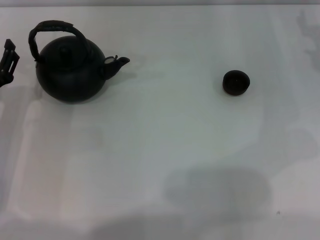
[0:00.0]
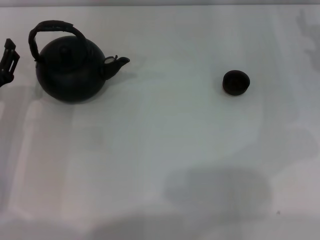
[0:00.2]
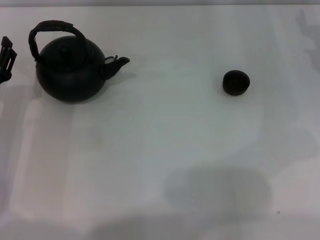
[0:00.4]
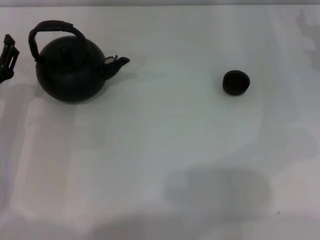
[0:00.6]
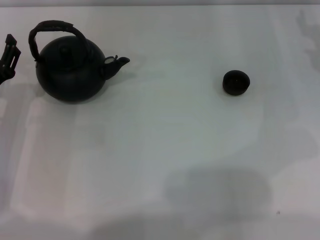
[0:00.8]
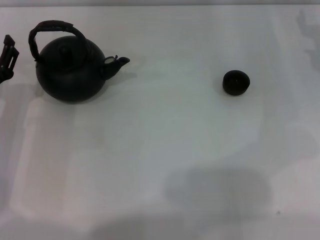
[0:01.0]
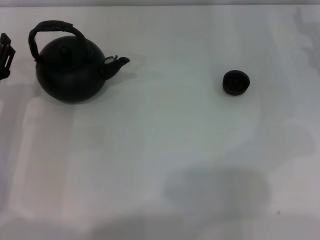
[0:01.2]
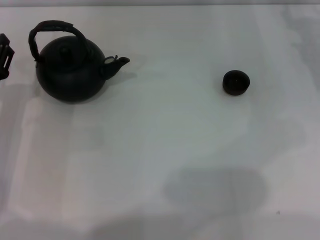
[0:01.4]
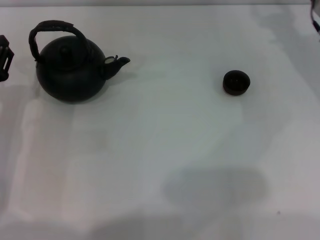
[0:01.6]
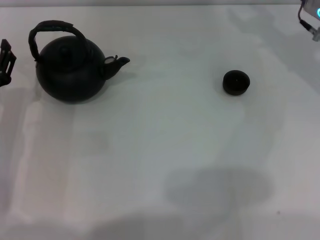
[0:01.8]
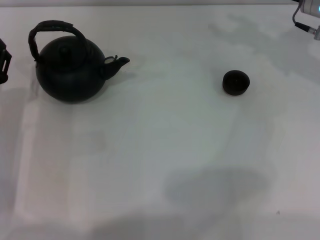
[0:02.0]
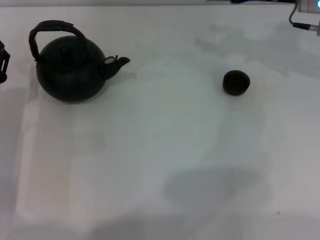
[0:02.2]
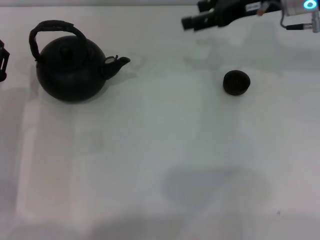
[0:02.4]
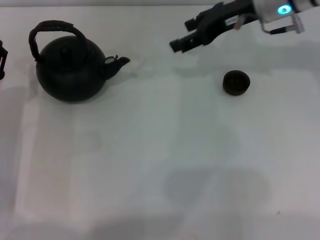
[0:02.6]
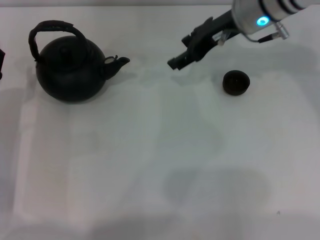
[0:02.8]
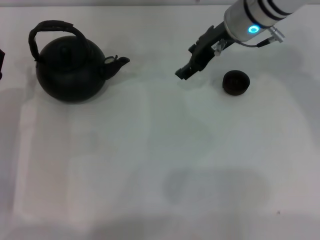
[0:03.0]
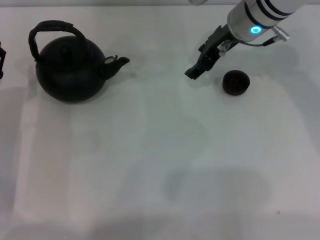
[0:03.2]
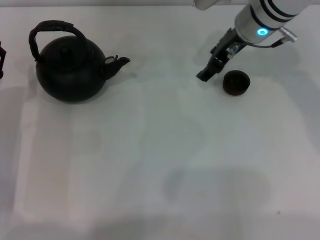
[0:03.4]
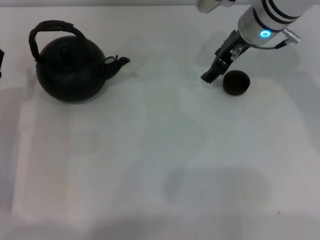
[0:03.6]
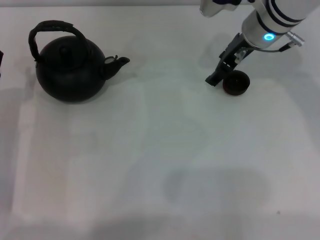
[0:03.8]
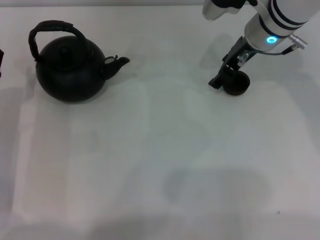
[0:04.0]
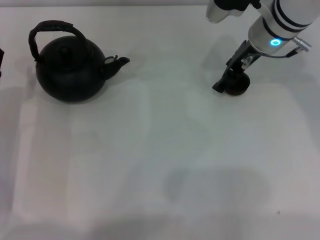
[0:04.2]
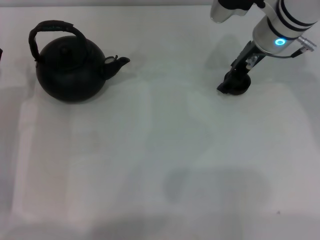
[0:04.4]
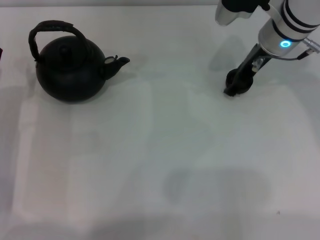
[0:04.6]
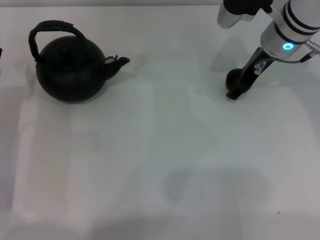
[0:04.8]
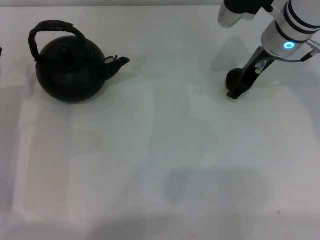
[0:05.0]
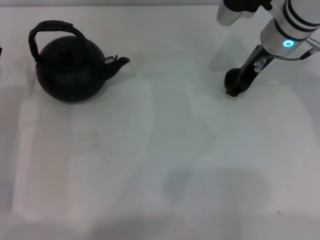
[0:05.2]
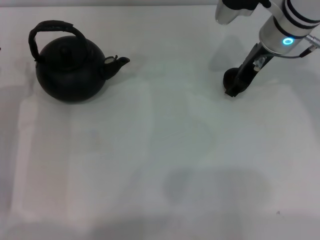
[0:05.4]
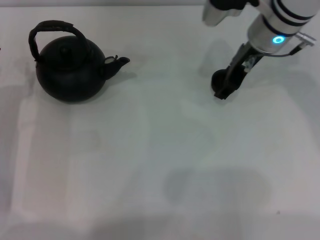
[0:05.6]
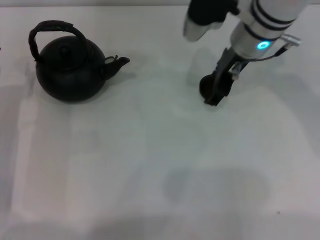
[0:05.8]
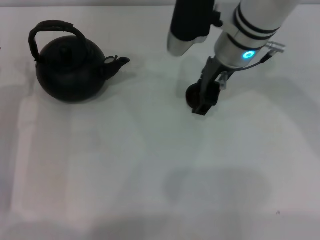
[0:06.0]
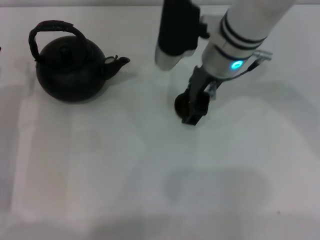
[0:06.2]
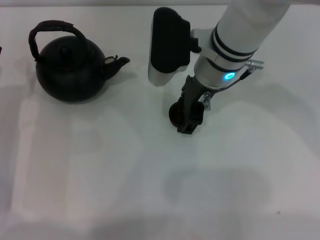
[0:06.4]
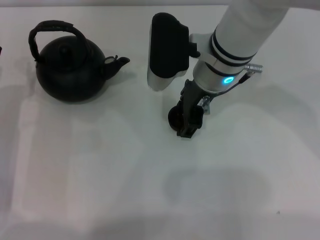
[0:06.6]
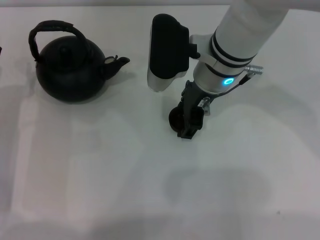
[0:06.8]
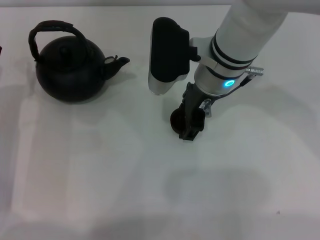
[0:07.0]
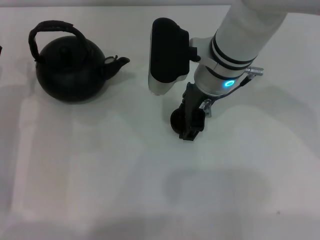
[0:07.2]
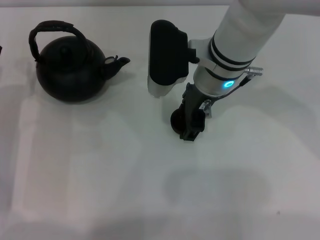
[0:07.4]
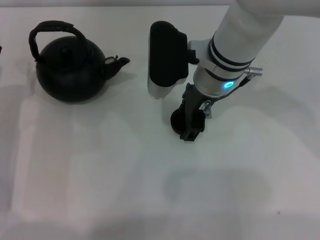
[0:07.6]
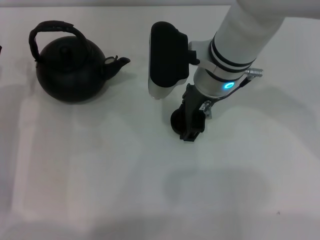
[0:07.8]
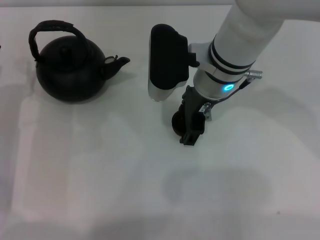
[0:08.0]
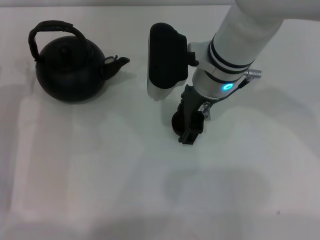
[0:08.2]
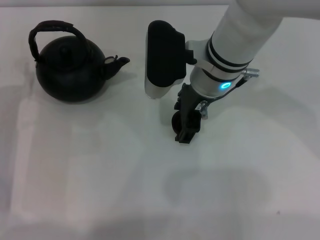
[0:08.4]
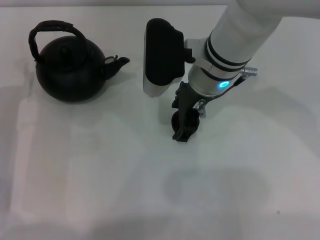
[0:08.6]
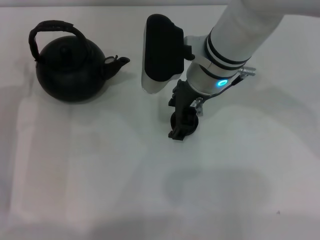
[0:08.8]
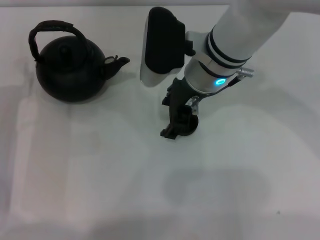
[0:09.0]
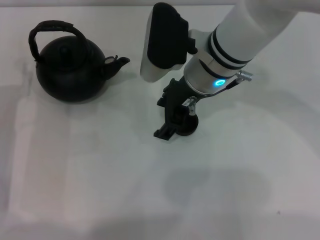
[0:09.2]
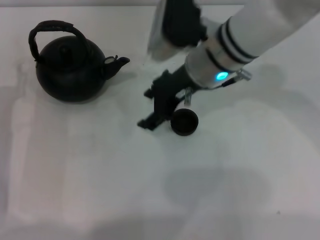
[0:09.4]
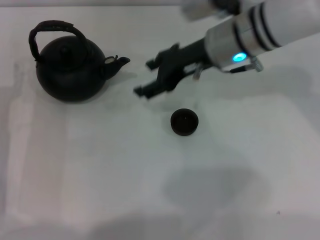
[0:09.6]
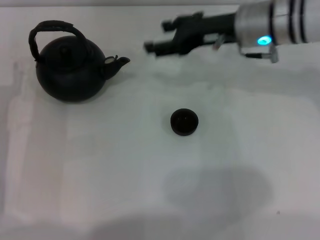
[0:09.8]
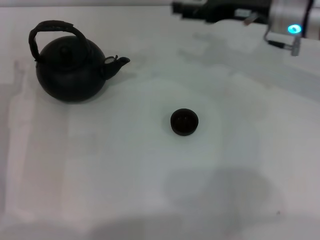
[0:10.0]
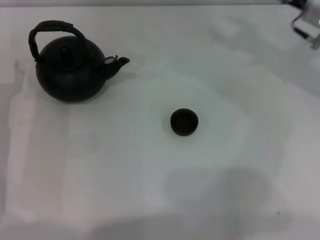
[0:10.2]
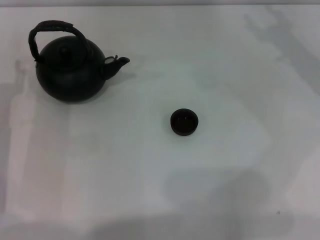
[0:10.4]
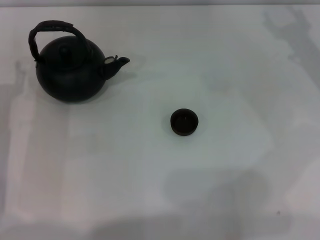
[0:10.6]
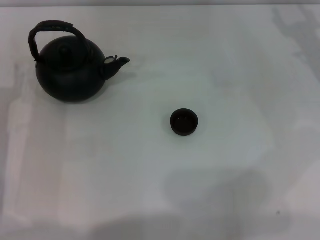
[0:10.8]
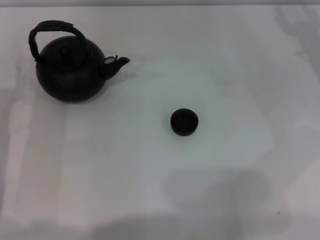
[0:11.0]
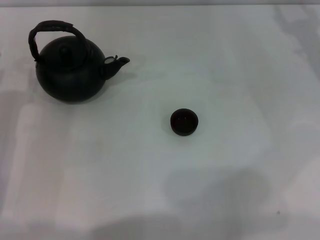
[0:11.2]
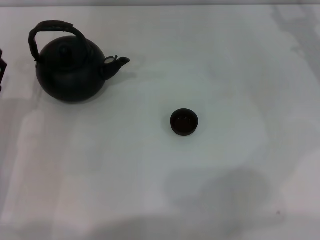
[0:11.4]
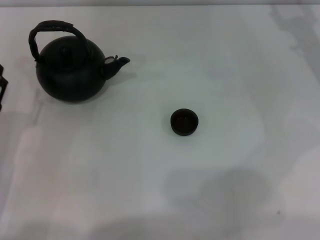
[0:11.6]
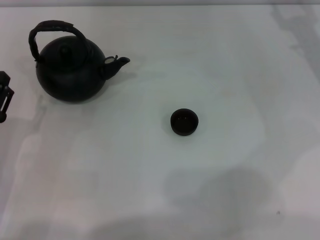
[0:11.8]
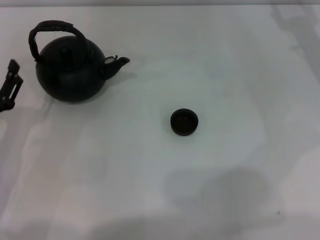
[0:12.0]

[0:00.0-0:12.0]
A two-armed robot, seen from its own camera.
Task of the whole recording: Grasp the handle of the teapot with one hand and pour tea into the teacup.
Step, 0:00.0 to 0:05.4: Pick up the teacup with the right gripper.
Step, 0:05.8 to 0:09.0: Place the teacup in the center of view with the right gripper.
0:01.6 to 0:03.0: The right gripper heads to the left, covering about 15 cm.
0:03.0 to 0:04.4: There are only small adjustments of the grippers.
0:04.4 to 0:06.0: The right gripper heads to the left, covering about 5 cm, and closes its fingers.
0:06.0 to 0:07.6: The right gripper changes place by about 5 cm.
0:07.6 to 0:09.0: The right gripper opens.
0:09.0 to 0:10.4: The right gripper is displaced to the right by about 20 cm.
0:10.4 to 0:12.0: The left gripper shifts by about 5 cm.

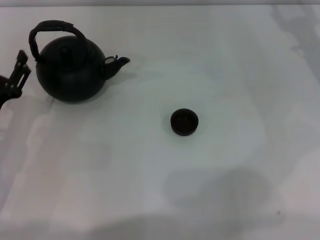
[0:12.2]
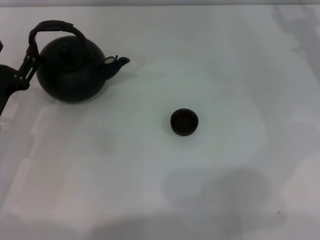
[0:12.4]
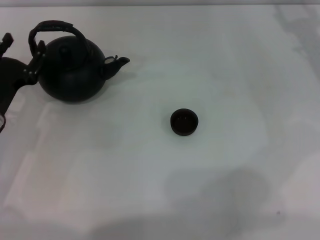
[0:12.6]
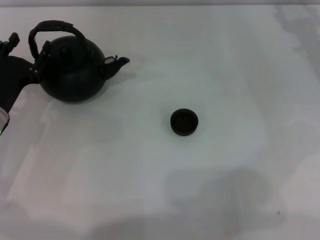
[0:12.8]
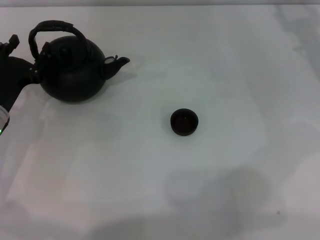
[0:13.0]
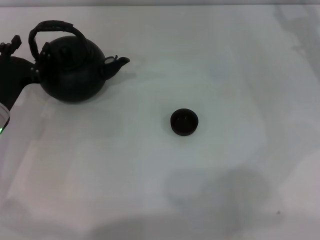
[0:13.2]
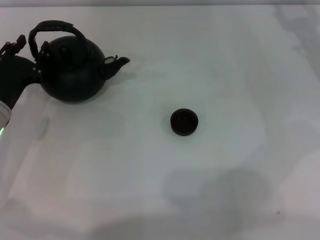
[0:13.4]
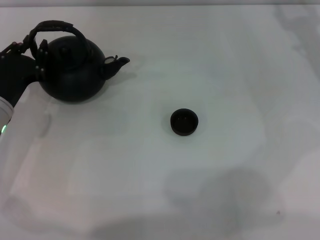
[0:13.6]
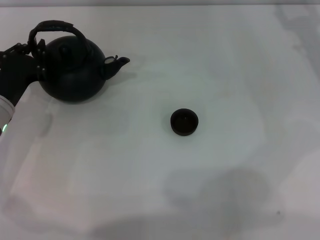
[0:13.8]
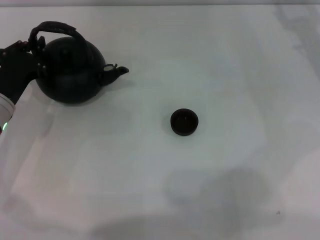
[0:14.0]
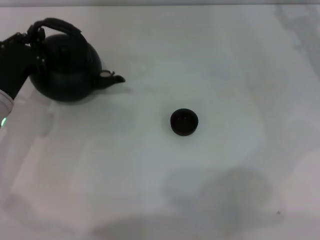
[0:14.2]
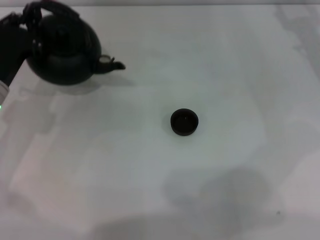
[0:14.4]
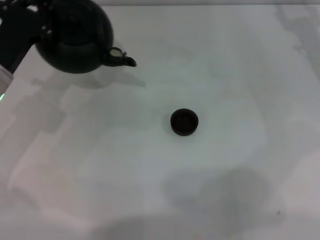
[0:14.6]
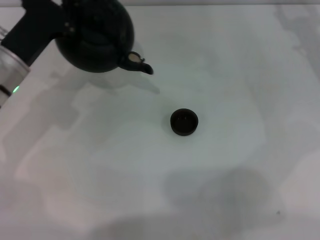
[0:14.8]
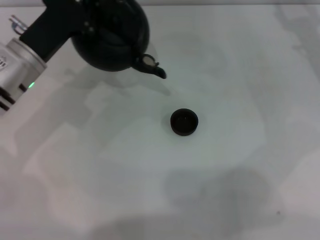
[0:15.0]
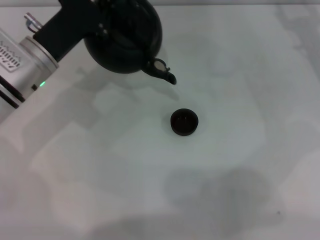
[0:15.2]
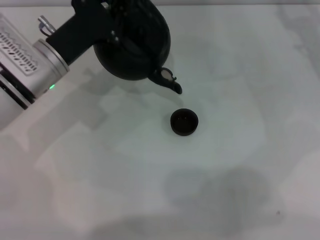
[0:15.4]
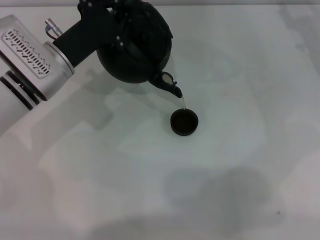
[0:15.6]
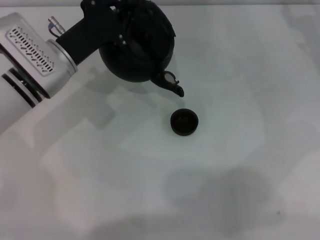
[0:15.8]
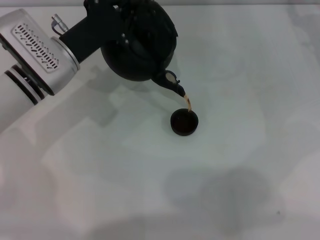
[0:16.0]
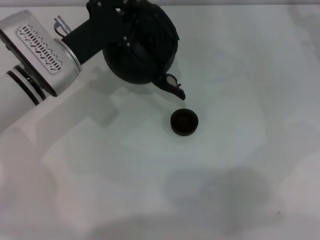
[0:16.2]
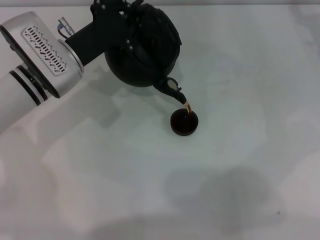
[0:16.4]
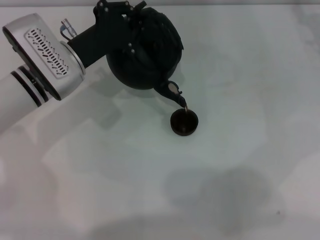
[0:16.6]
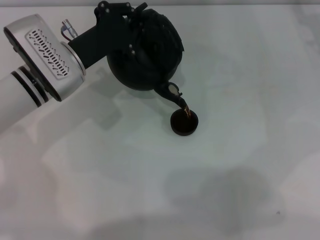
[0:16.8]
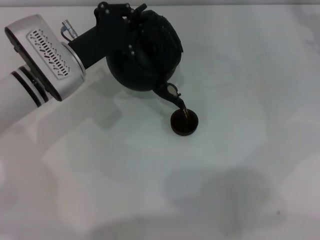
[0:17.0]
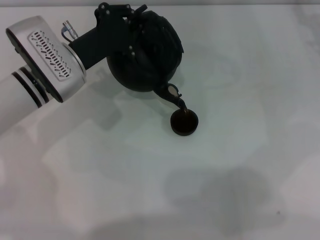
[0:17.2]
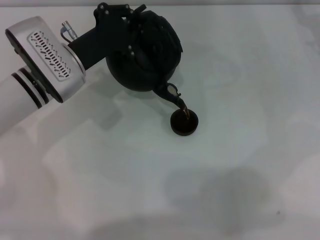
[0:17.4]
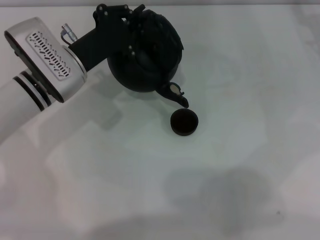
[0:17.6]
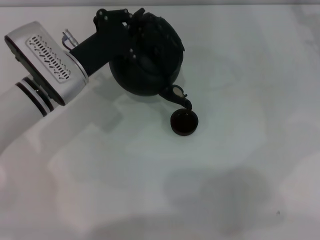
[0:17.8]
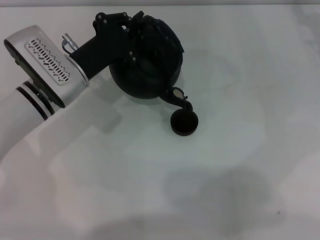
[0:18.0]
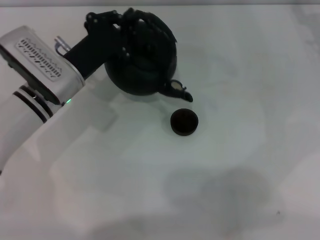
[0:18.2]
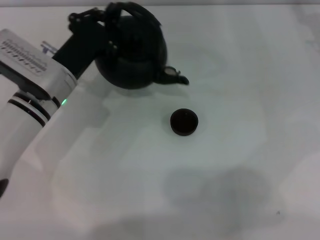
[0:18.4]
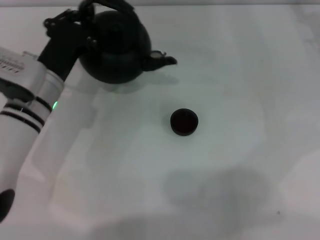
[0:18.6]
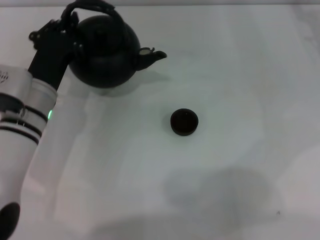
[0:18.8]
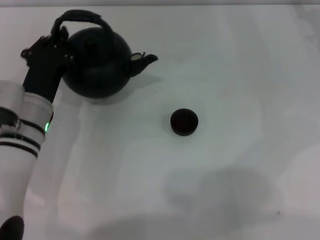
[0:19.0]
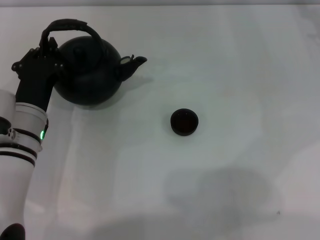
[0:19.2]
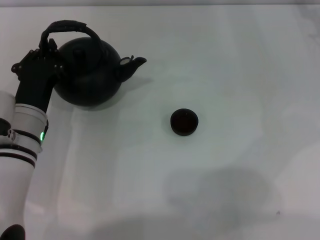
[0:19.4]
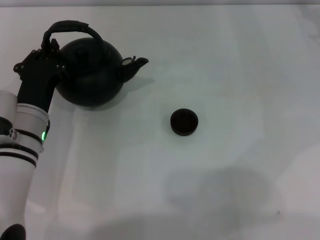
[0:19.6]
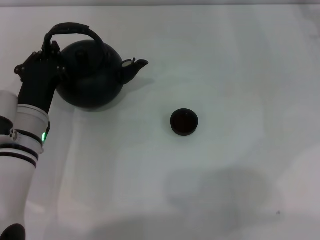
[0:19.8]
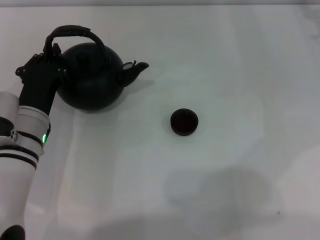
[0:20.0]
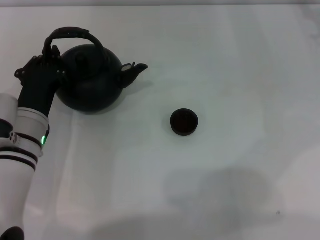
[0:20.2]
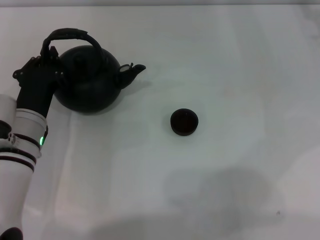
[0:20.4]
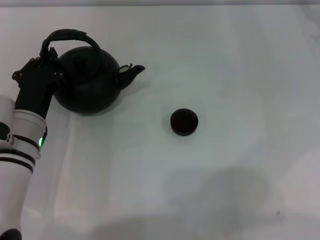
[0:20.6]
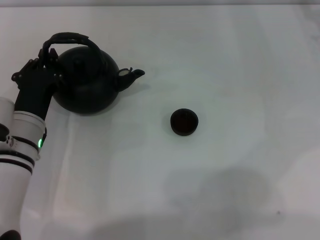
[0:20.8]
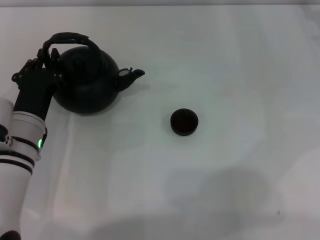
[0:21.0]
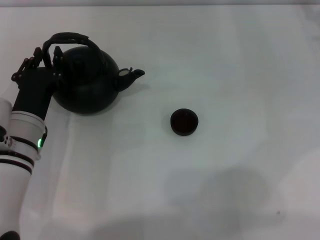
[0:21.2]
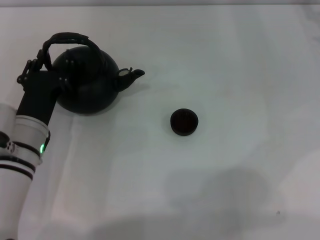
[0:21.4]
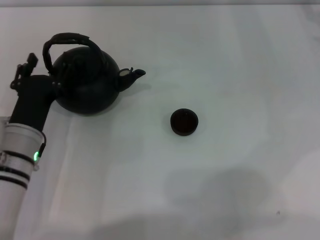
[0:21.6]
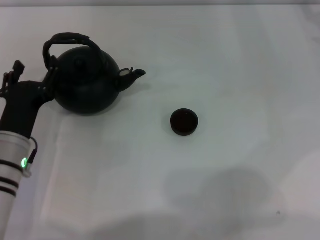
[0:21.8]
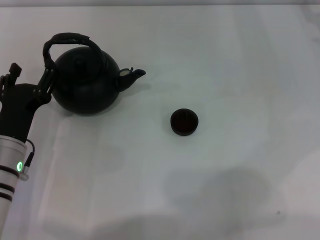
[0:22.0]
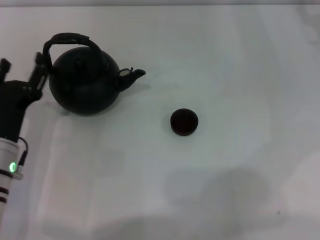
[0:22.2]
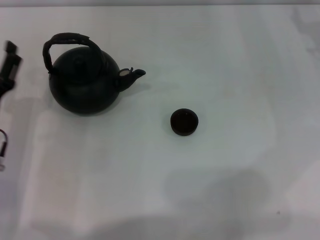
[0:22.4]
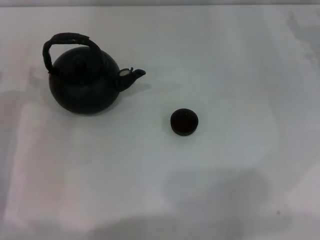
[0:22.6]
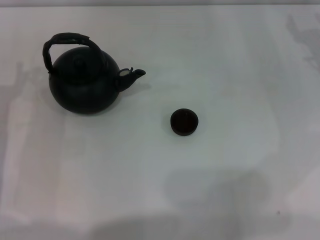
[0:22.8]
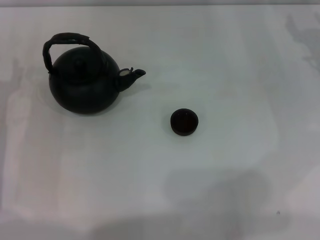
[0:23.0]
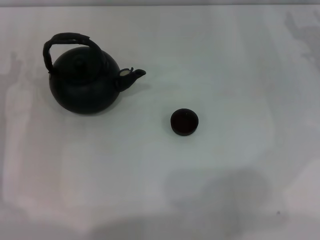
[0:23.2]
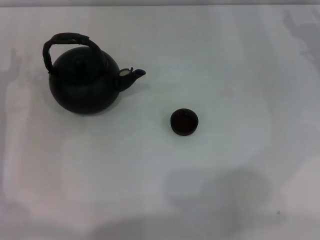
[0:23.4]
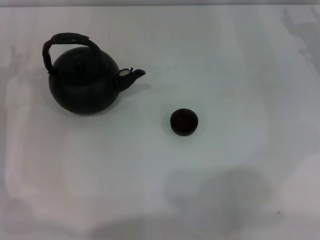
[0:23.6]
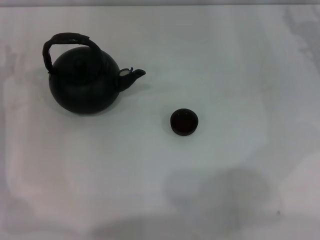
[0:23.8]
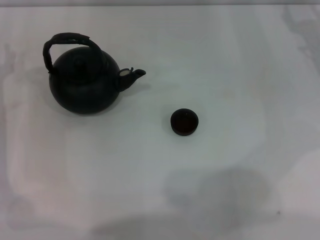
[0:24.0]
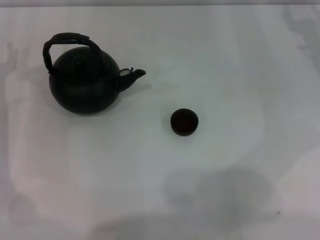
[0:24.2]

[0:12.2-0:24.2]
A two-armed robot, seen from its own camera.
Task of the whole recording: Grasp the handle of the teapot with one hand and pour tea into the teacup.
Step, 0:12.2 to 0:14.8: Pick up the teapot with the left gripper.
Step, 0:15.0 to 0:18.0: Pour tea into the teacup with the left gripper.
Step, 0:18.2 to 0:22.0: Put down the teapot with the left gripper.
0:12.2 to 0:13.8: The left gripper heads forward, covering about 5 cm, and closes.
0:13.8 to 0:15.2: The left gripper heads to the right and upward, covering roughly 10 cm, and closes its fingers.
0:15.2 to 0:18.2: The grippers make only small movements.
0:18.2 to 0:19.8: The left gripper shifts approximately 5 cm backward.
0:19.8 to 0:21.2: Both grippers stay about where they are.
0:21.2 to 0:22.6: The left gripper heads to the left, covering about 10 cm, and opens up.
